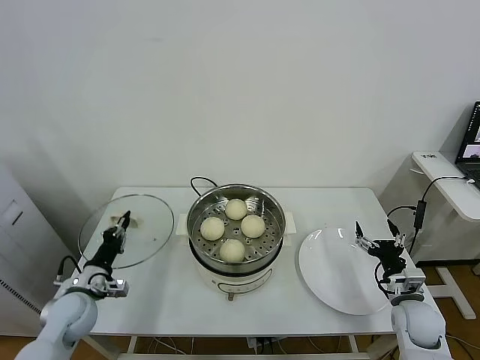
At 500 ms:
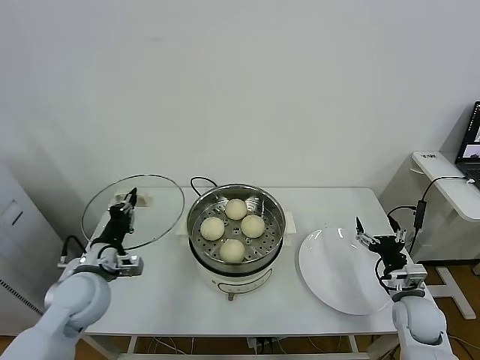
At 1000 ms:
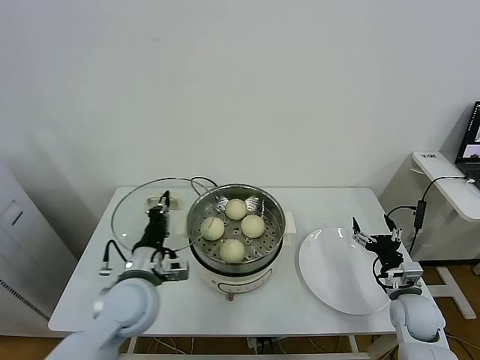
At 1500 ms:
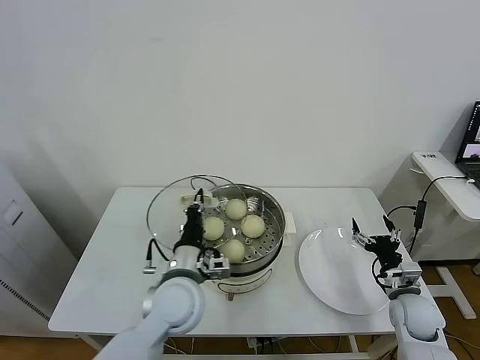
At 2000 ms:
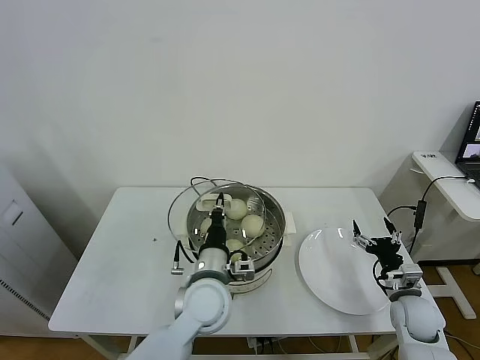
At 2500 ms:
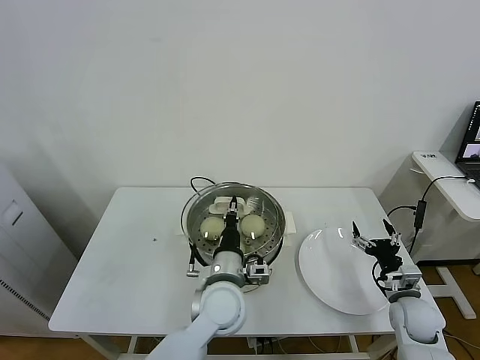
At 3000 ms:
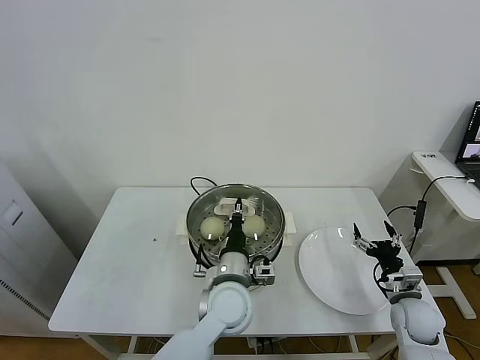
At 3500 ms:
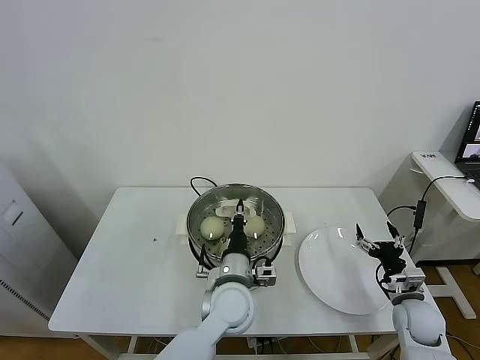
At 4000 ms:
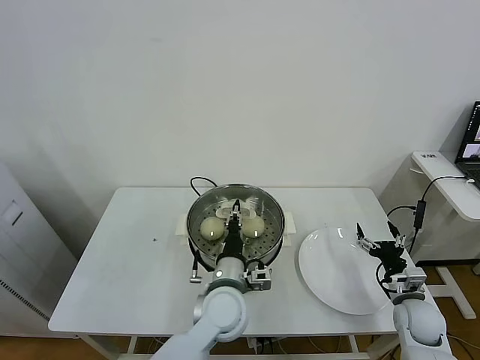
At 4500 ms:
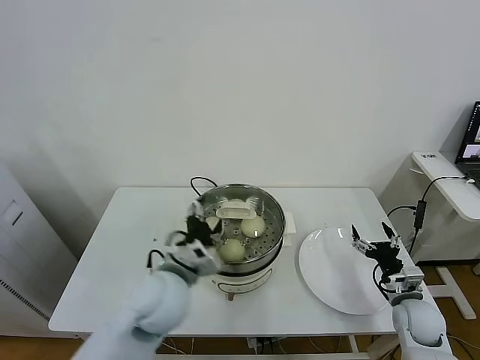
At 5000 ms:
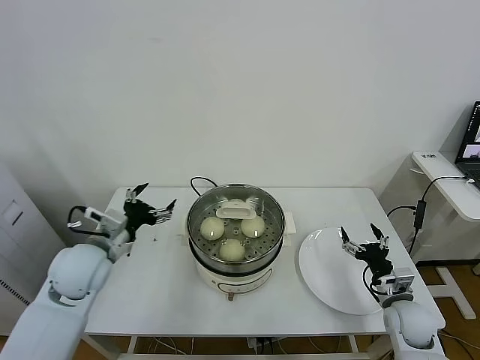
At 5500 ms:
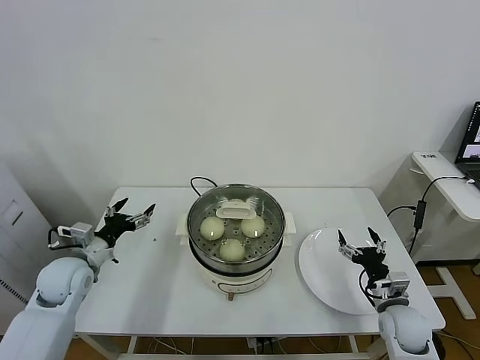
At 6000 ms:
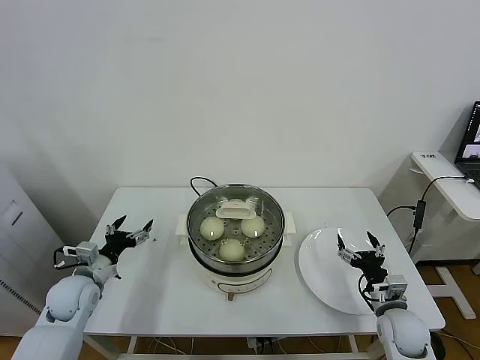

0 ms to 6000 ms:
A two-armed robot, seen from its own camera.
Task of the whole recording: take steamed baozi put them in steamer.
Step, 0 ms to 4500 ms: Place the pot lid on the steamer with left gripper.
0 ms to 2000 ms: The left gripper goes approximately 30 cm to the right.
2000 ms to 4000 ms: The grippers move only a little.
4000 ms to 6000 ms: The left gripper moves to the left, roughly 35 cm, and opens.
